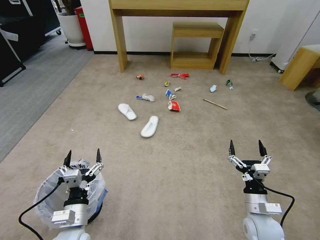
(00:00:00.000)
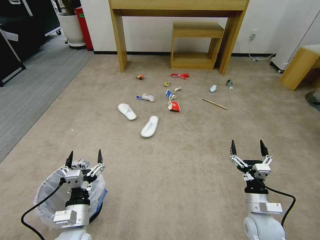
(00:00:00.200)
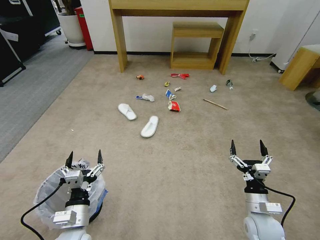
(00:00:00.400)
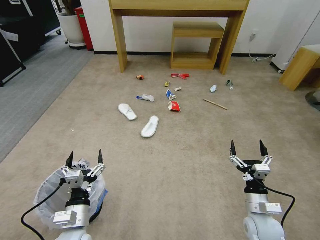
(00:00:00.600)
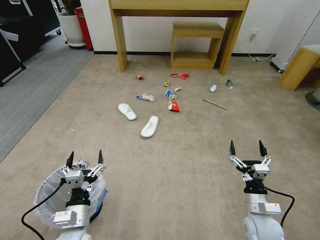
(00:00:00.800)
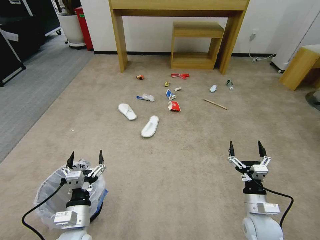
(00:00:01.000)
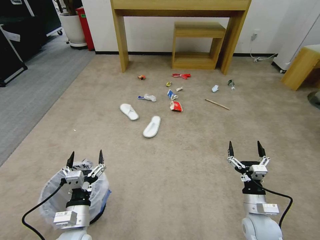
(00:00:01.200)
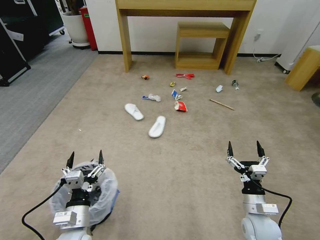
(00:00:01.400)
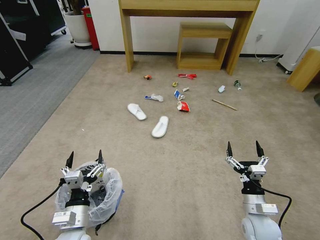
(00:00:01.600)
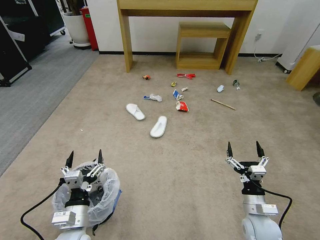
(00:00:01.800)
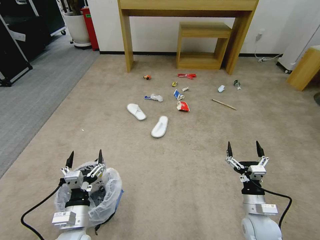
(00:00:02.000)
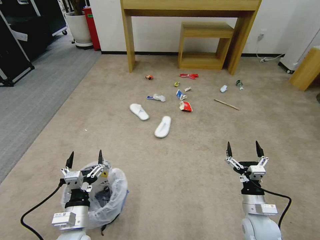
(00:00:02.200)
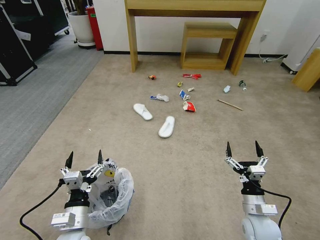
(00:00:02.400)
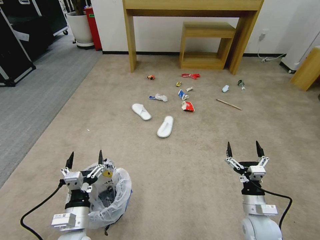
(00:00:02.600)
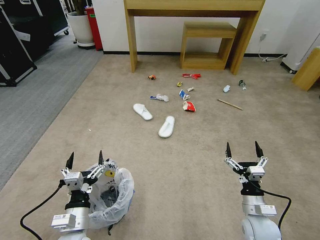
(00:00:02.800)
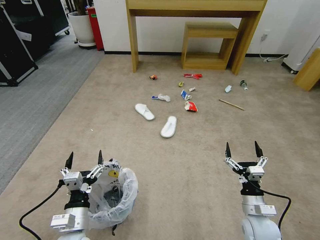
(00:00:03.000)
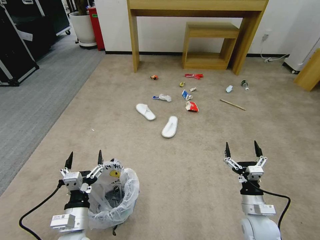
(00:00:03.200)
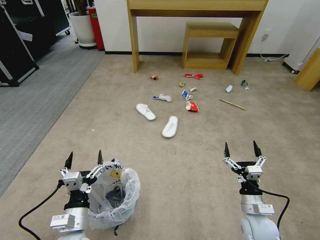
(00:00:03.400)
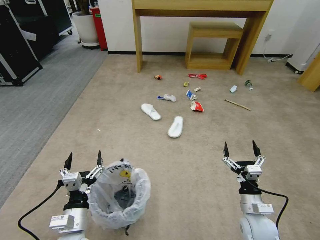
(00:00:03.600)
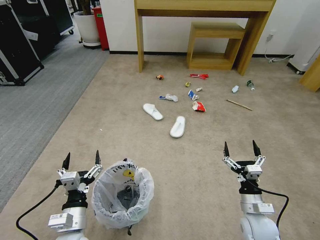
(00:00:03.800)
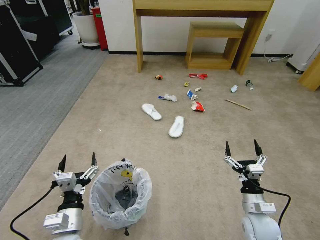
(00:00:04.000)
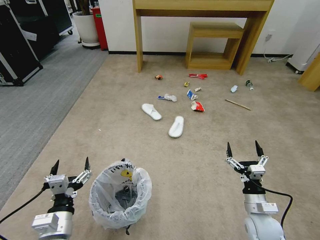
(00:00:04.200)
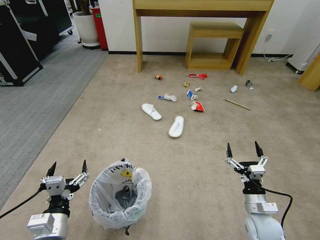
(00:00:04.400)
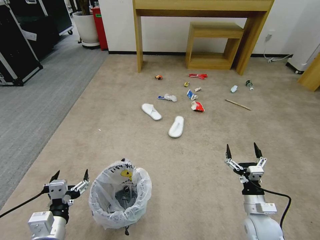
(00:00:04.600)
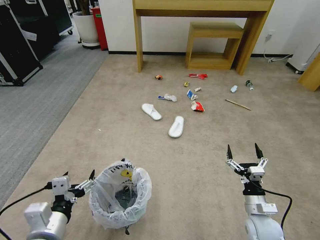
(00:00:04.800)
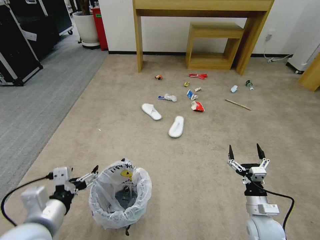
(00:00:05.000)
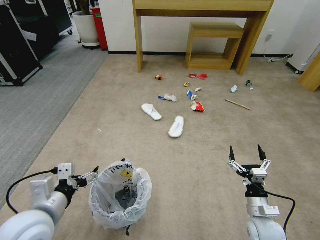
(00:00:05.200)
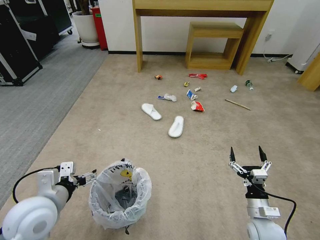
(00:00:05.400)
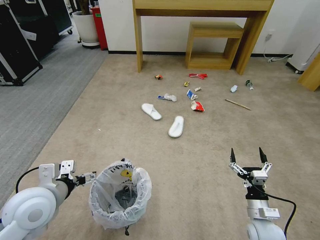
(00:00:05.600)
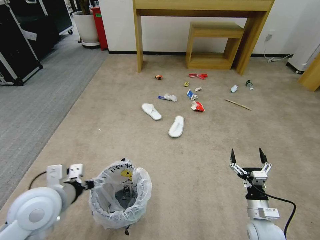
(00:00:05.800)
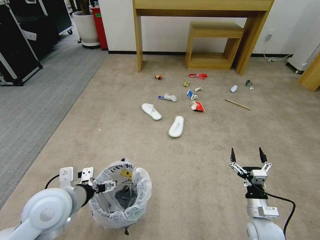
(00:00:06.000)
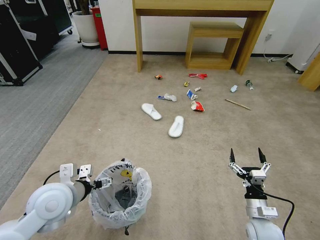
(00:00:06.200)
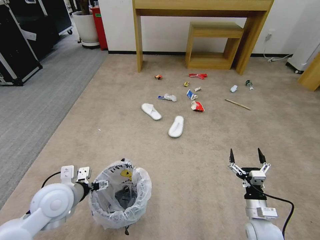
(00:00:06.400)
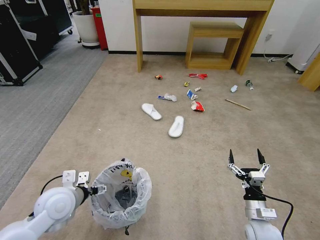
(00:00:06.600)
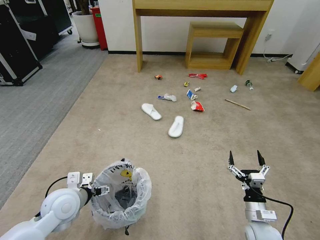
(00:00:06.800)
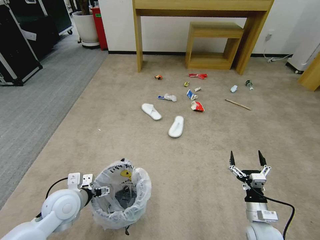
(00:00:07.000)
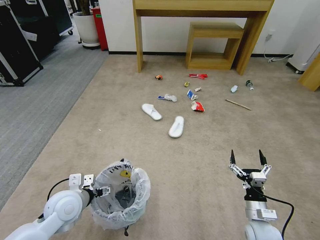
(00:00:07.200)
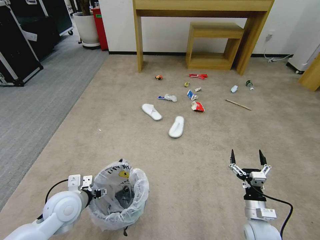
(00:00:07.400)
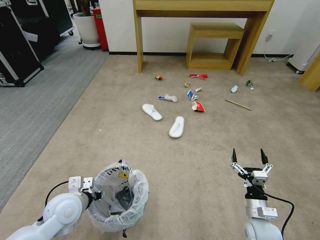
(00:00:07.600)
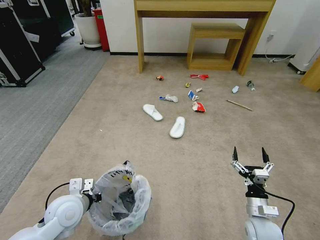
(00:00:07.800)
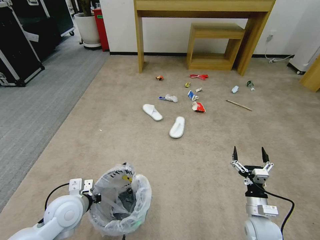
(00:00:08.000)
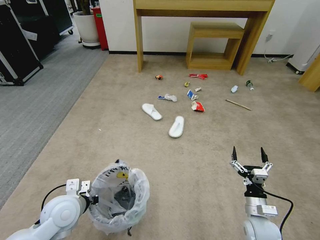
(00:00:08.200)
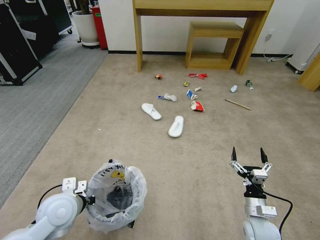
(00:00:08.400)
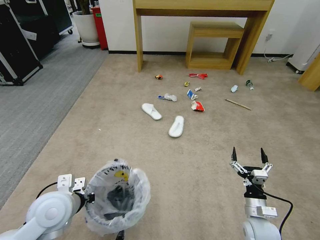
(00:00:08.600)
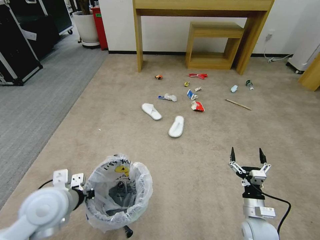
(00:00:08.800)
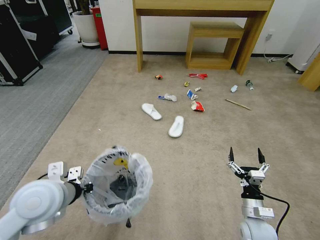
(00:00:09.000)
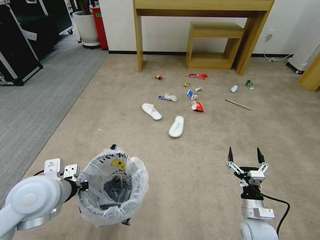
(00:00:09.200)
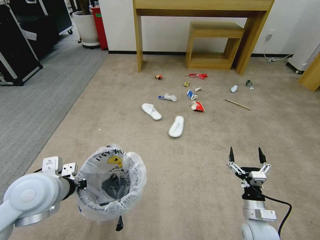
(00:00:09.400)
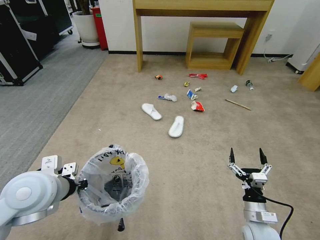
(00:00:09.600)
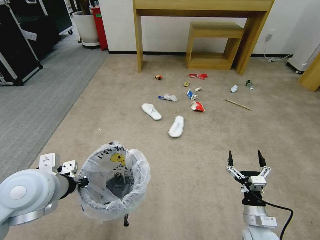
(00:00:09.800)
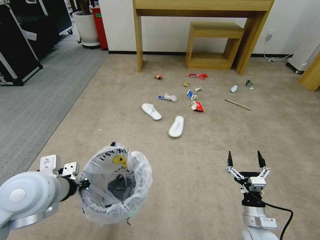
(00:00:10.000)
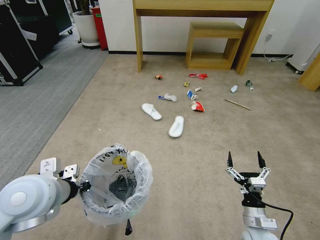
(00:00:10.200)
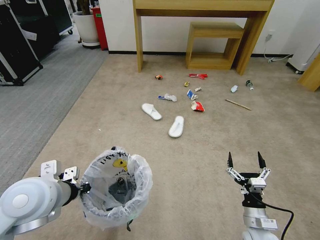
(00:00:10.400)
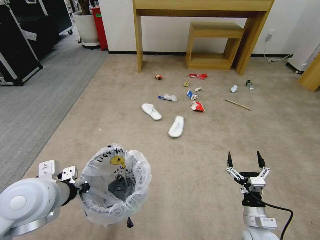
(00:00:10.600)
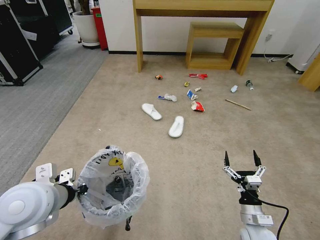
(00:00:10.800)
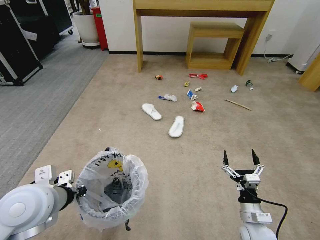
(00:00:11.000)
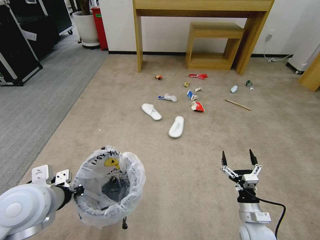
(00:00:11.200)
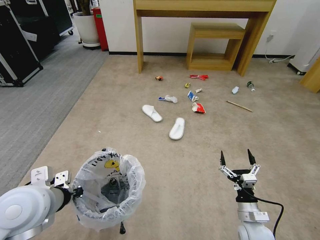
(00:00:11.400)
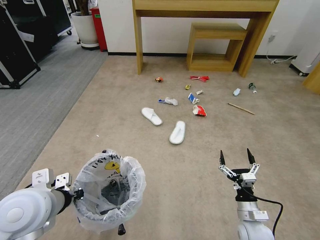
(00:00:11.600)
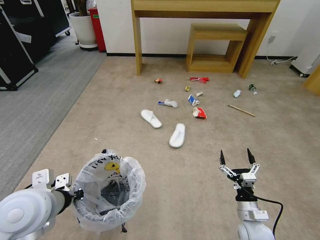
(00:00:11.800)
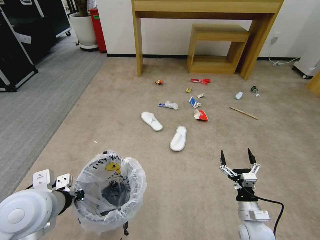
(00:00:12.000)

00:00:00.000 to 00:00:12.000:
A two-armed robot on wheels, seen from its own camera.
Task of the whole recording: Pick up the trash bin and place the garbage on the floor into it.
00:00:01.600 to 00:00:03.000: The two grippers keep their place.
00:00:03.000 to 00:00:04.400: The left gripper ends up some 5 cm from where it was.
00:00:04.400 to 00:00:06.000: The left gripper shifts roughly 15 cm upward and forward.
00:00:06.000 to 00:00:07.600: The left gripper moves downward, roughly 10 cm, and closes its fingers.
00:00:07.600 to 00:00:09.000: The left gripper heads upward, covering about 15 cm, and closes.
00:00:09.000 to 00:00:10.400: The grippers move only a little.

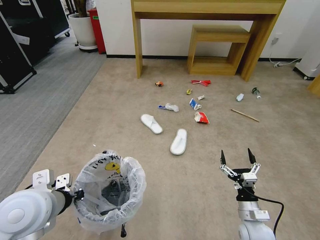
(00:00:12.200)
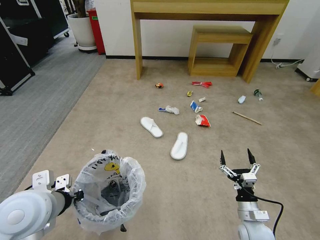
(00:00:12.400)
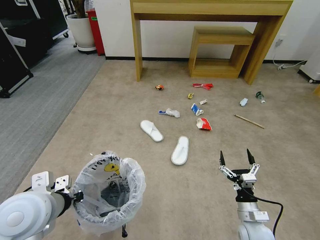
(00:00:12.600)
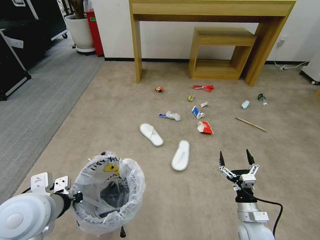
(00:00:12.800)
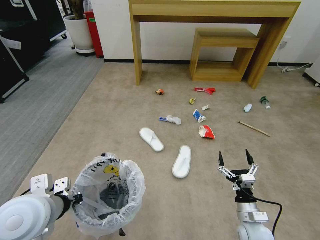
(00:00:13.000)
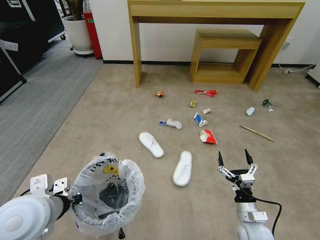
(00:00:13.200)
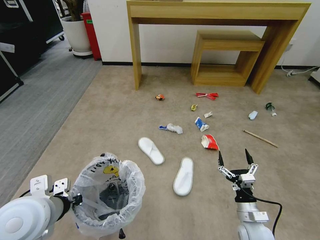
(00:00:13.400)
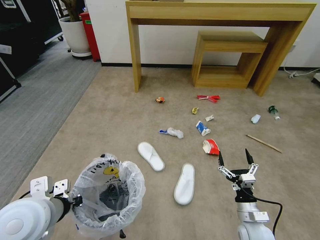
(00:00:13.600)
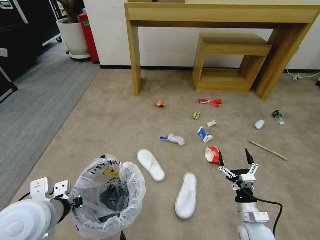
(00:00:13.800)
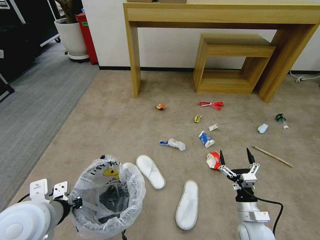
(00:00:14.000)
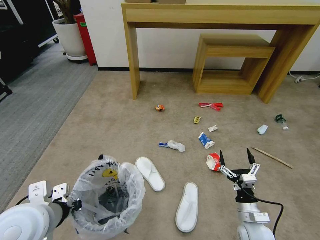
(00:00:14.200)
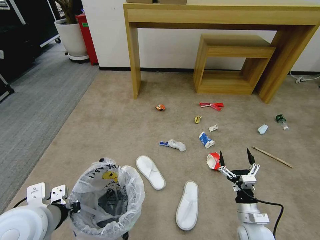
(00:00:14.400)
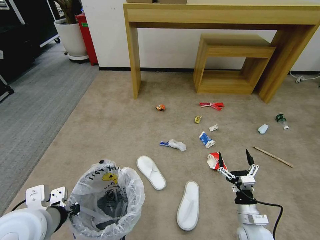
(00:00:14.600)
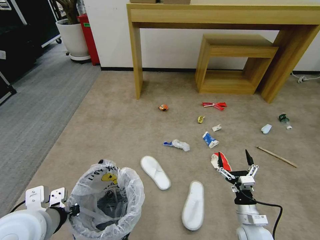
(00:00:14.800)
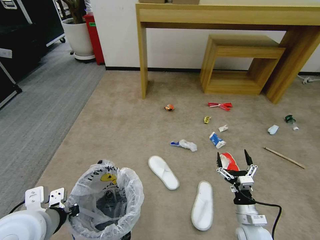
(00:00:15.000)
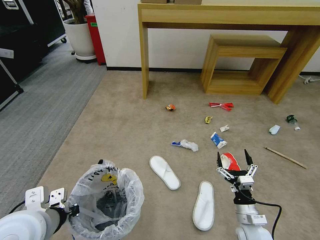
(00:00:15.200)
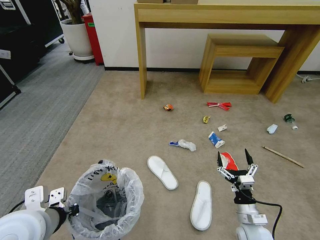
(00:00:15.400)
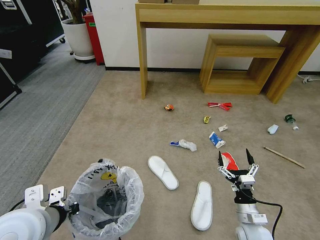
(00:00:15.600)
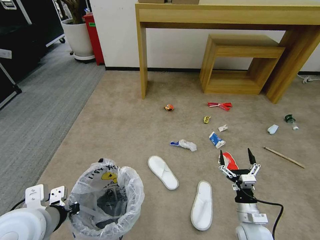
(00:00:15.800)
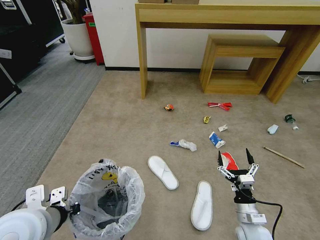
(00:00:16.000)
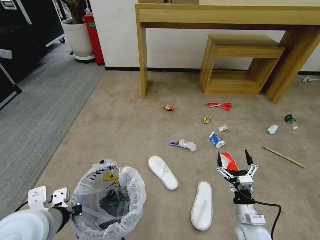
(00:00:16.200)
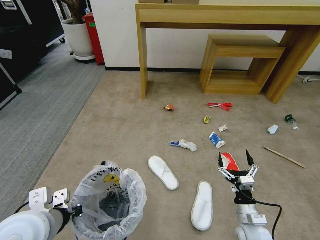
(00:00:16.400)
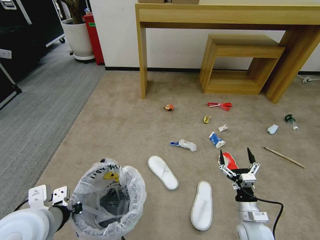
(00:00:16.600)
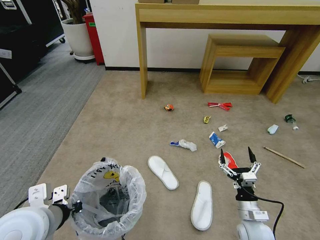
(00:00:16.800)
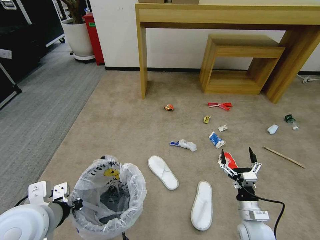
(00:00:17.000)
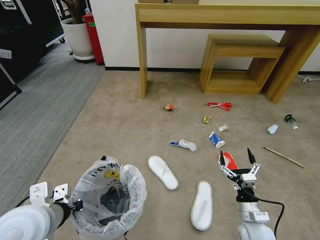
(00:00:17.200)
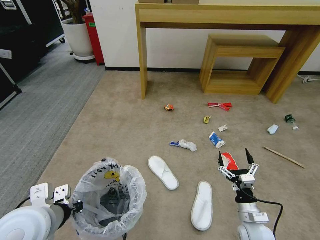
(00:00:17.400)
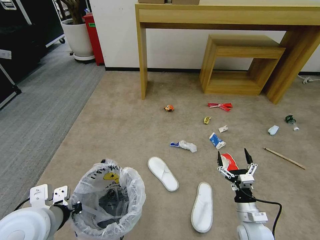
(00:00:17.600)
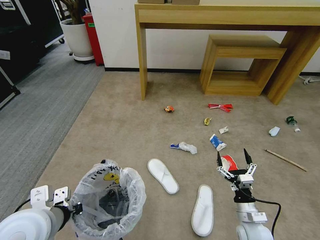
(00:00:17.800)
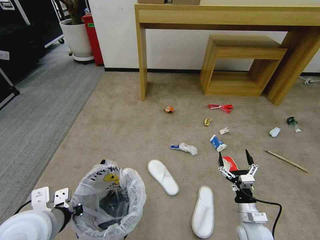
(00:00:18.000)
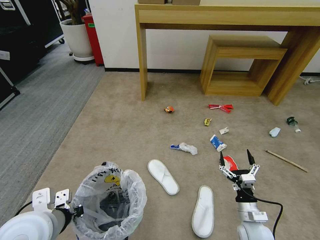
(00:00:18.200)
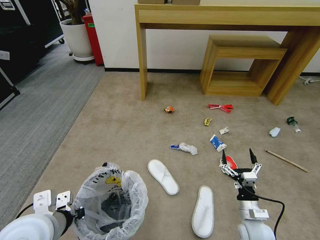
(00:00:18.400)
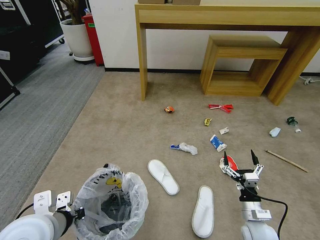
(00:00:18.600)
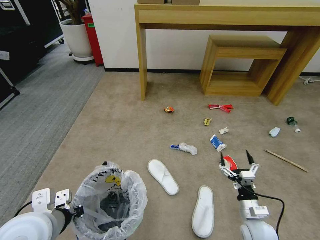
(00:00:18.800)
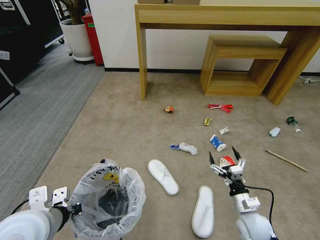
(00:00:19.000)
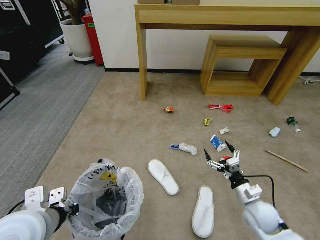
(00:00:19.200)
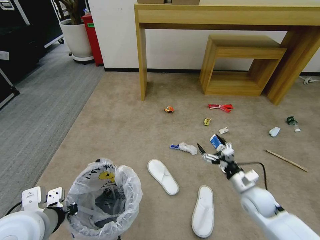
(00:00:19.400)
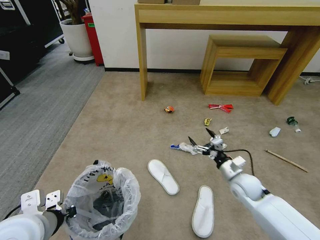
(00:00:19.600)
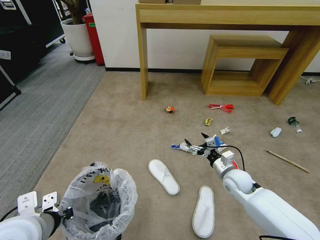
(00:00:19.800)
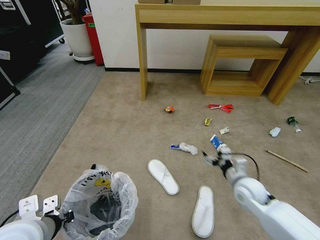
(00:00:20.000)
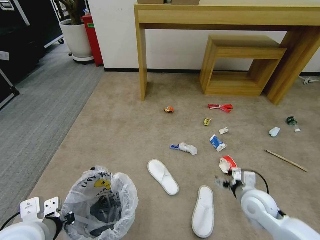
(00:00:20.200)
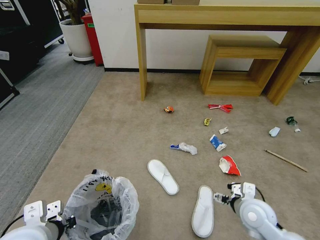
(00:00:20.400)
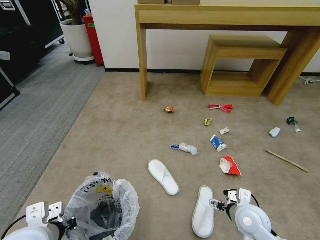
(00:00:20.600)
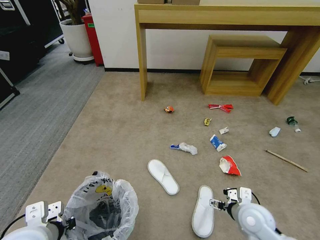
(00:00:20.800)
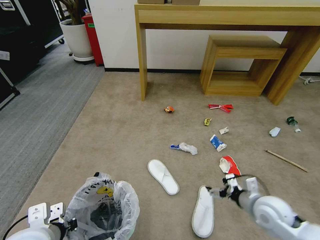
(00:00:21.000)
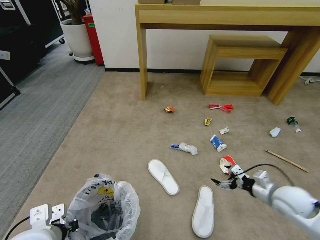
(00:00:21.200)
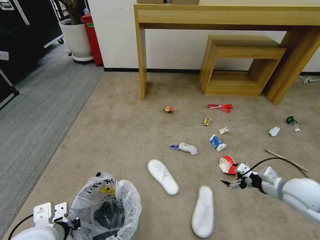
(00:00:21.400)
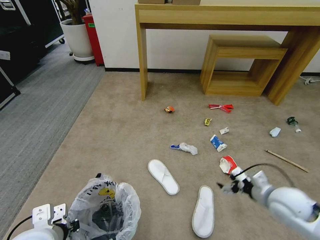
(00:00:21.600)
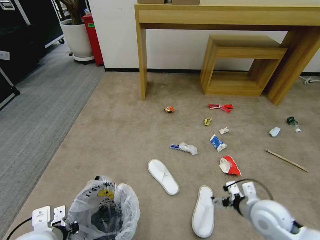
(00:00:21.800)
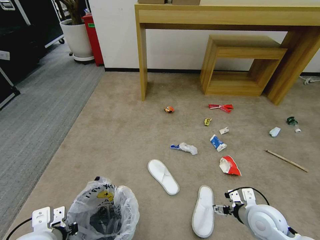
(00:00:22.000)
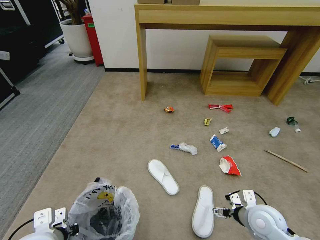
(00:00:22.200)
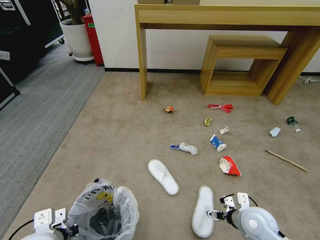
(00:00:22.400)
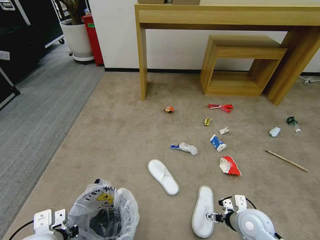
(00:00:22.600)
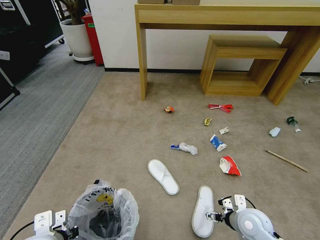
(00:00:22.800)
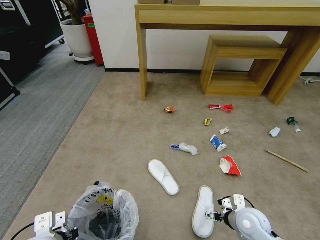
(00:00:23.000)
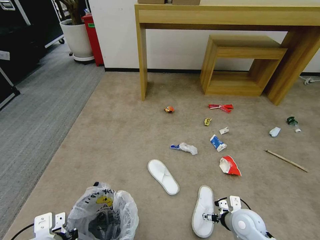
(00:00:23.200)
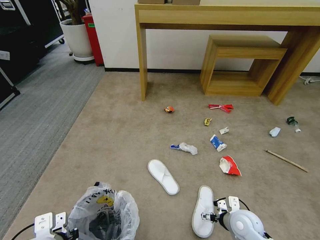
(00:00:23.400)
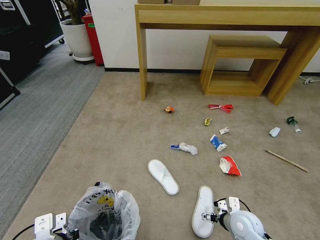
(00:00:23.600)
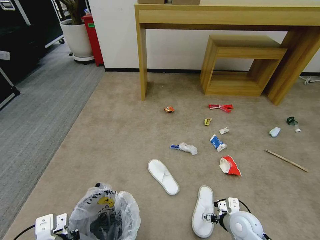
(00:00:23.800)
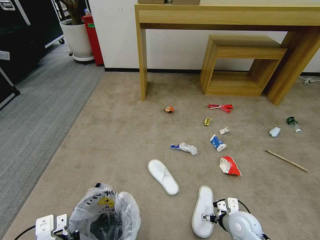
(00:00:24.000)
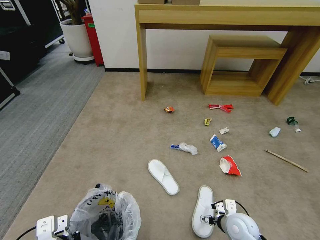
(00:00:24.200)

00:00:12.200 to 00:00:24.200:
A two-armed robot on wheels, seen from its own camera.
Task of the whole recording: Pick up the trash bin and place the garbage on the floor into it.
00:00:15.200 to 00:00:16.600: The two grippers keep their place.
00:00:16.600 to 00:00:18.200: Both grippers stay put.
00:00:18.200 to 00:00:19.800: The right gripper shifts approximately 15 cm forward.
00:00:19.800 to 00:00:21.200: The right gripper heads backward and to the right, covering roughly 15 cm.
00:00:21.200 to 00:00:22.600: The right gripper heads to the left and downward, covering about 10 cm.
00:00:22.600 to 00:00:24.200: The right gripper changes place by roughly 5 cm.
